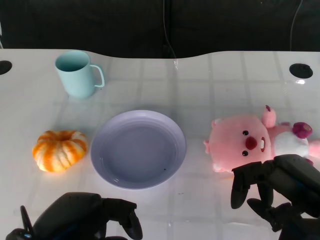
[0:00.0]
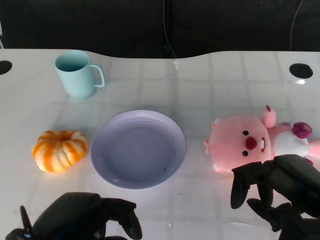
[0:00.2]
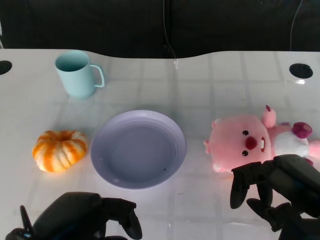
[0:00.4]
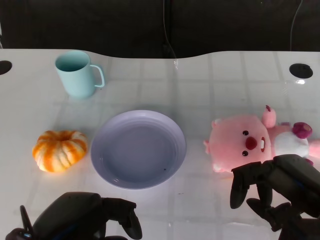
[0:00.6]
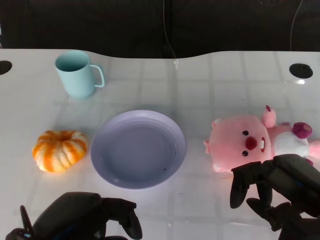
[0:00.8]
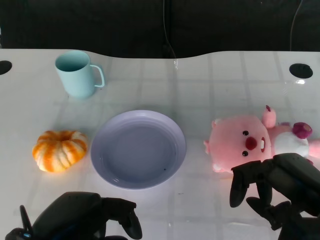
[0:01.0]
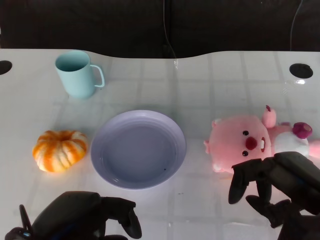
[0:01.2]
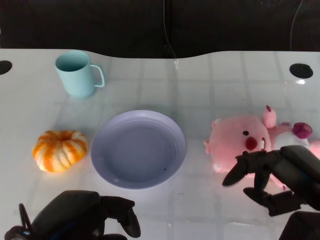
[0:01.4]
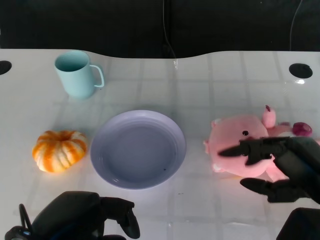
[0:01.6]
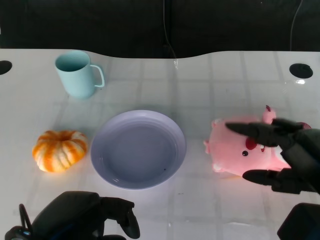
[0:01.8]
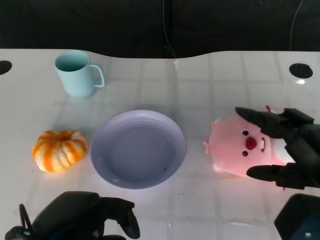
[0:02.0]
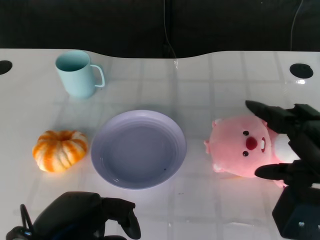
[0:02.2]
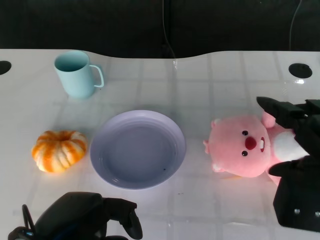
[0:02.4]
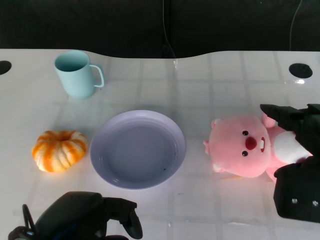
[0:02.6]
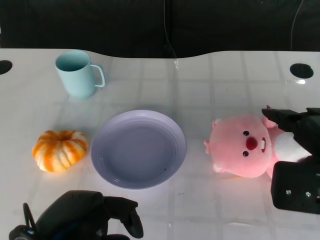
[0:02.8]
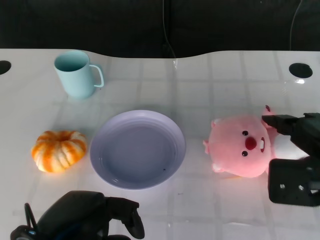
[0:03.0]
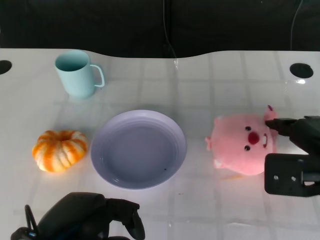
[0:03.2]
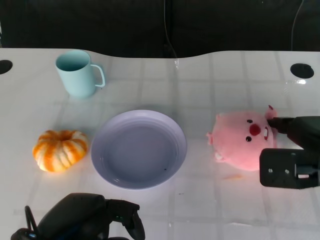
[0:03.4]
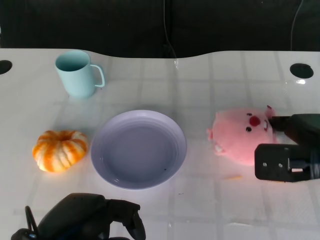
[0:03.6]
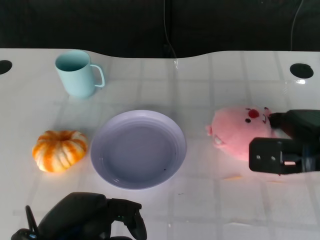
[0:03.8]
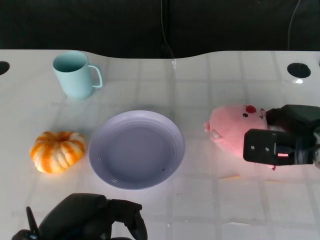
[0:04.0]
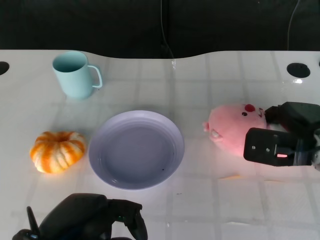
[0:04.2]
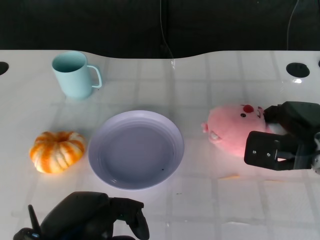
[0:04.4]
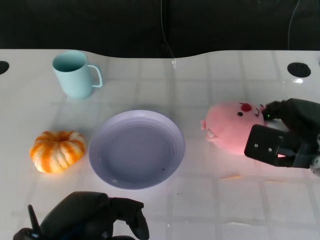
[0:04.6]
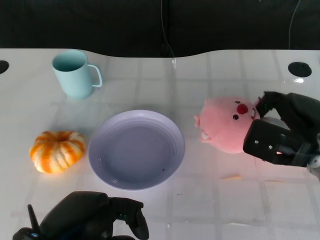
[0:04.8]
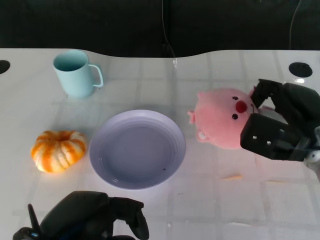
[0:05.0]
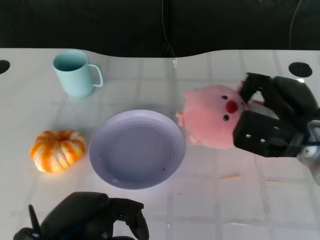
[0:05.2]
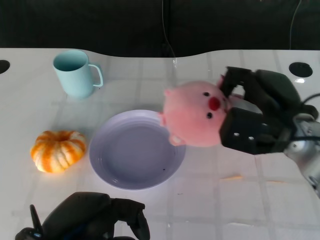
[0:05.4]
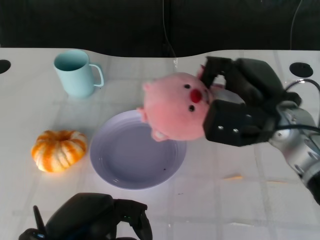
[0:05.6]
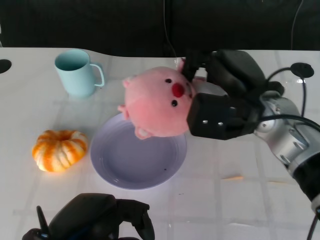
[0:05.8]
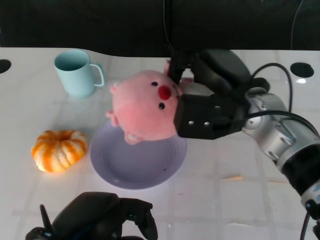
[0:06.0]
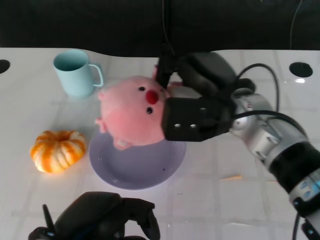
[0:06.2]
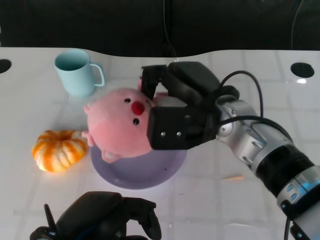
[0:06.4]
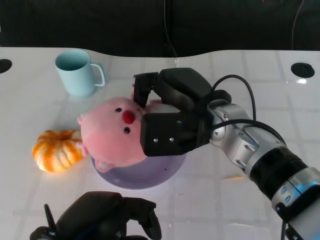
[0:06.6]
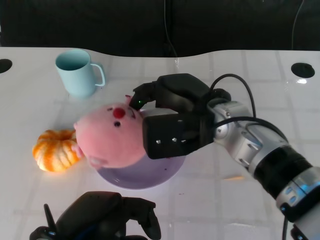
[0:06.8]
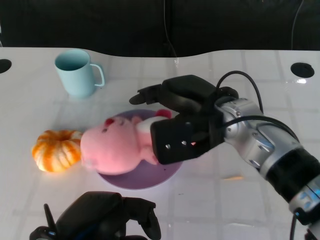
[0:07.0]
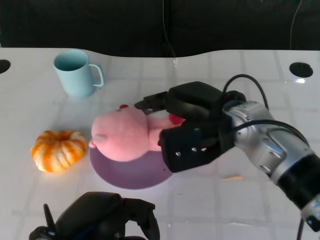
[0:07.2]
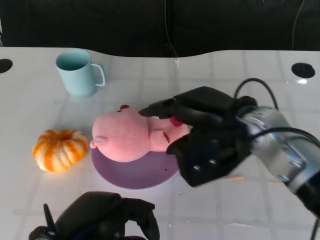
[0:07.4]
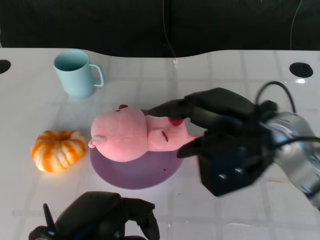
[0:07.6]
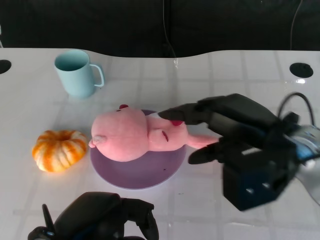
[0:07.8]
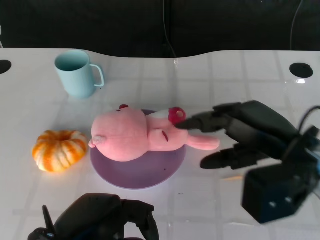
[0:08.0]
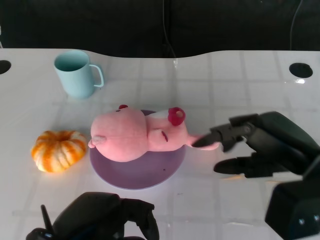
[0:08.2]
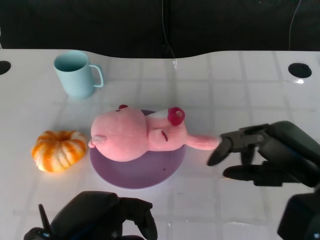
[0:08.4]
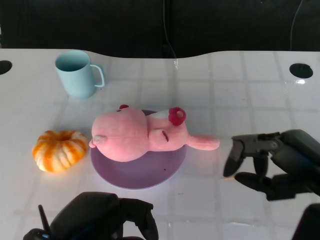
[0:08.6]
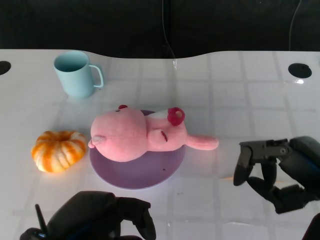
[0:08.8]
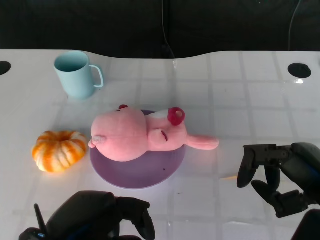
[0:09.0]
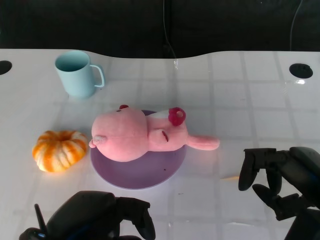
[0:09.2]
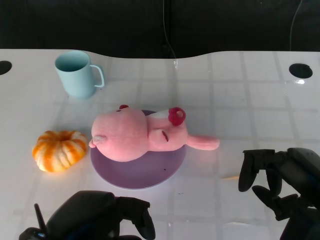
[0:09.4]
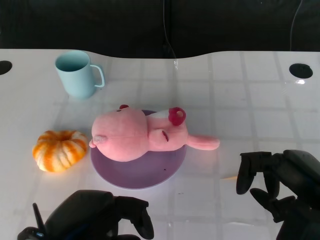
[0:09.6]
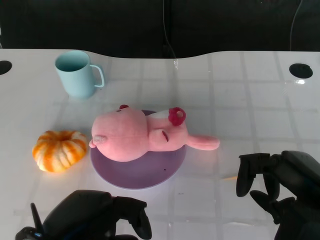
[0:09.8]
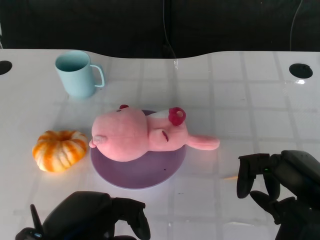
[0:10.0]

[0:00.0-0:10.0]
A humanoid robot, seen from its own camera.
Task of the whole recording: Pick up the doll on the other side of the plate and place it into the plate.
Step, 0:01.2 to 0:05.4: Grasp the pink doll with the right gripper.
Step, 0:05.6 to 0:07.8: Place the pink doll into the plate with the right gripper.
0:01.4 to 0:02.8: The right hand moves roughly 5 cm.
0:02.8 to 0:04.2: The right hand heads forward and downward, covering about 10 cm.
0:04.2 to 0:05.8: The right hand heads to the left and upward, covering about 10 cm.
0:07.2 to 0:08.6: The right hand heads to the right and backward, covering about 15 cm.
0:08.6 to 0:10.0: There are only small adjustments of the hands.

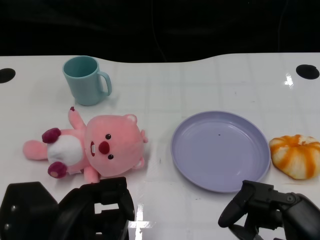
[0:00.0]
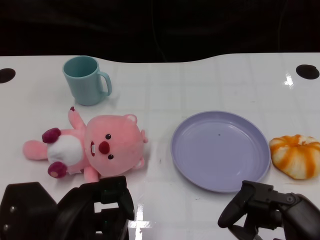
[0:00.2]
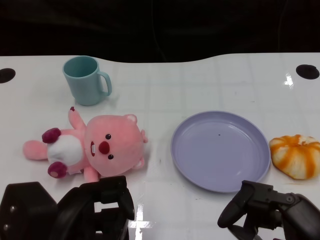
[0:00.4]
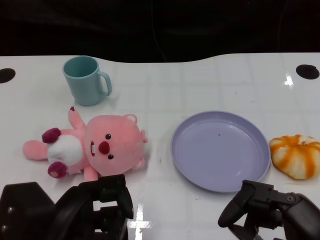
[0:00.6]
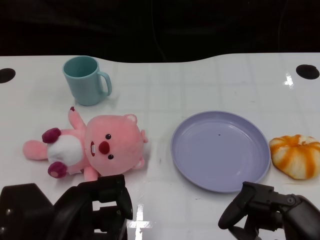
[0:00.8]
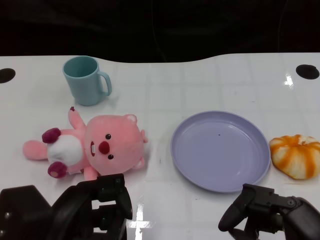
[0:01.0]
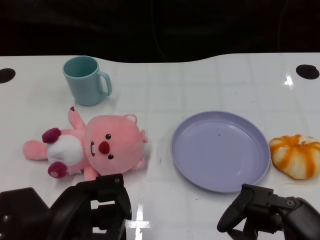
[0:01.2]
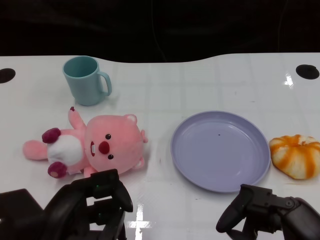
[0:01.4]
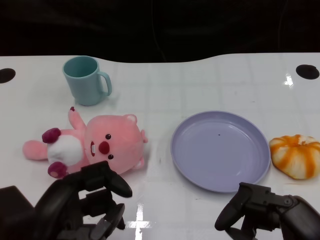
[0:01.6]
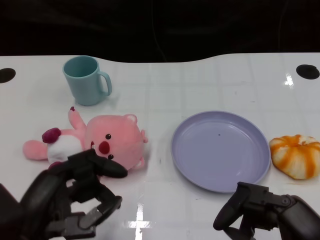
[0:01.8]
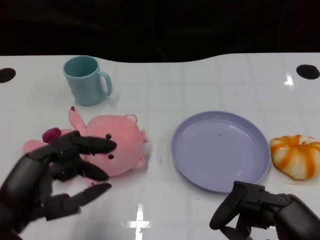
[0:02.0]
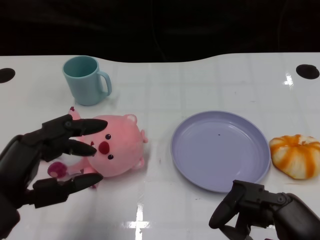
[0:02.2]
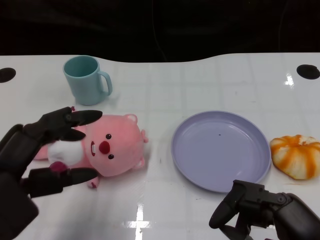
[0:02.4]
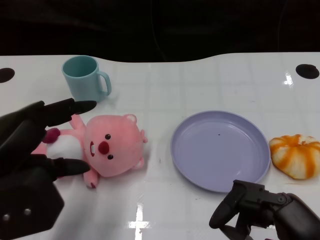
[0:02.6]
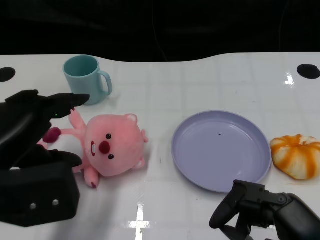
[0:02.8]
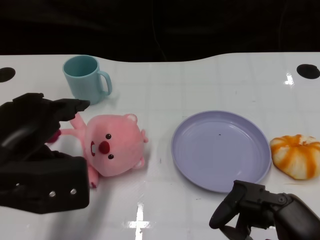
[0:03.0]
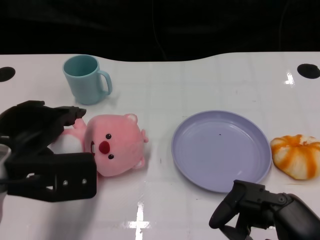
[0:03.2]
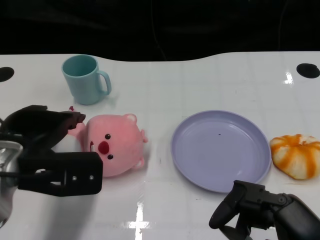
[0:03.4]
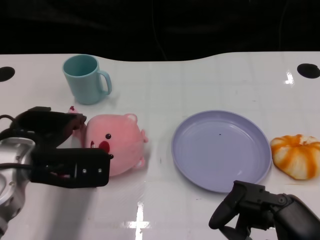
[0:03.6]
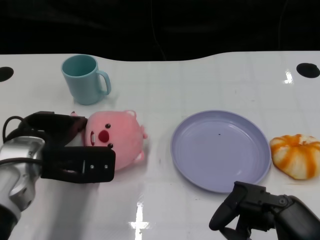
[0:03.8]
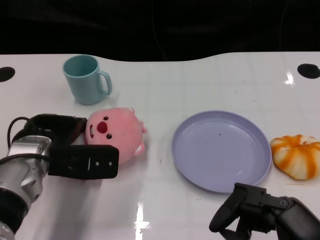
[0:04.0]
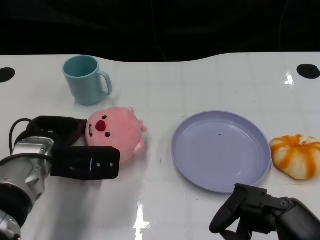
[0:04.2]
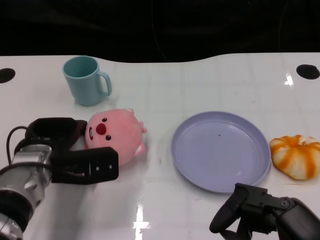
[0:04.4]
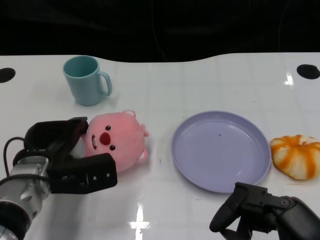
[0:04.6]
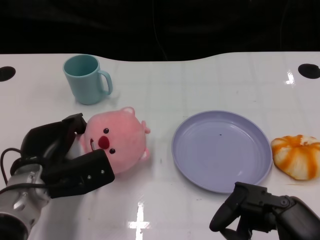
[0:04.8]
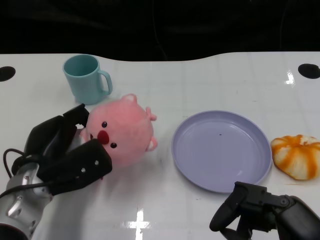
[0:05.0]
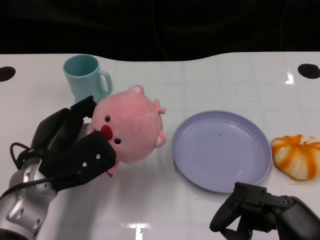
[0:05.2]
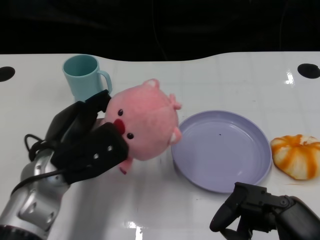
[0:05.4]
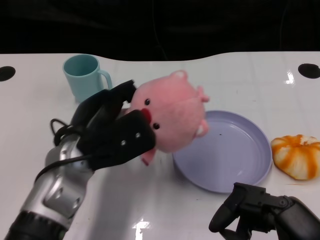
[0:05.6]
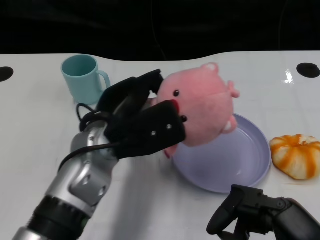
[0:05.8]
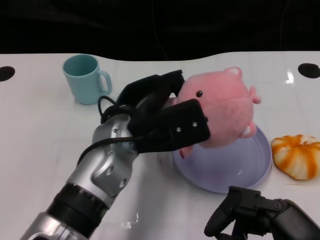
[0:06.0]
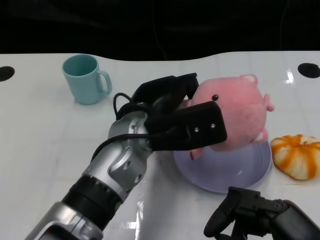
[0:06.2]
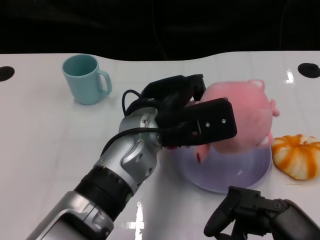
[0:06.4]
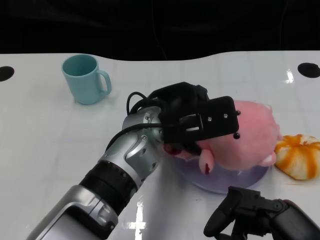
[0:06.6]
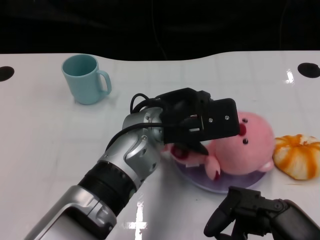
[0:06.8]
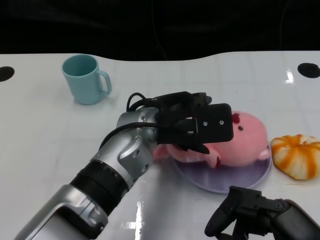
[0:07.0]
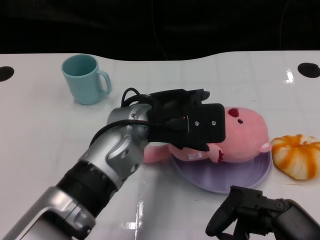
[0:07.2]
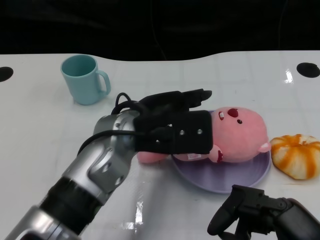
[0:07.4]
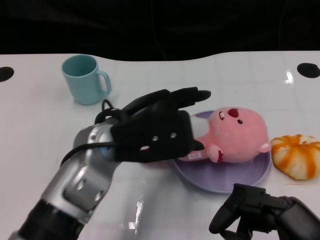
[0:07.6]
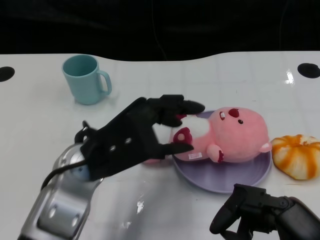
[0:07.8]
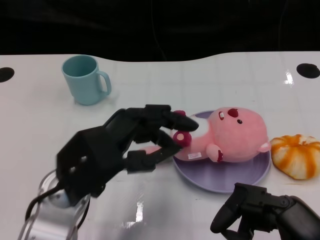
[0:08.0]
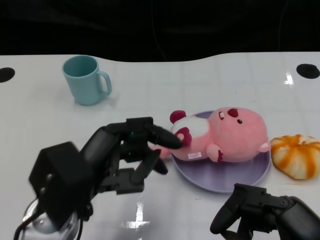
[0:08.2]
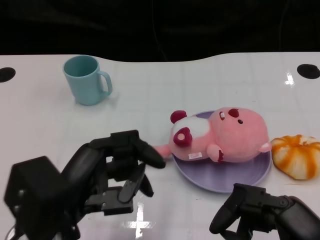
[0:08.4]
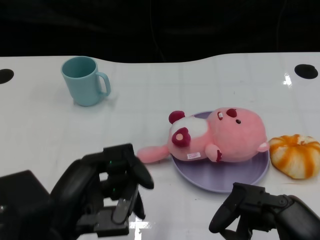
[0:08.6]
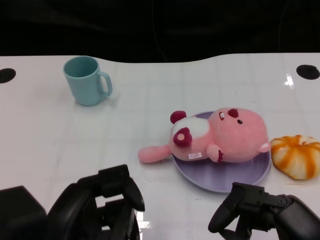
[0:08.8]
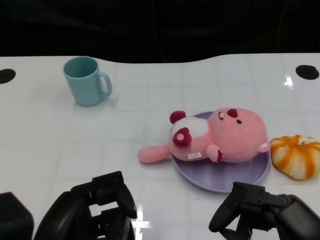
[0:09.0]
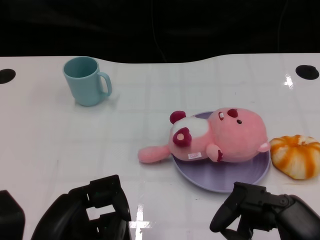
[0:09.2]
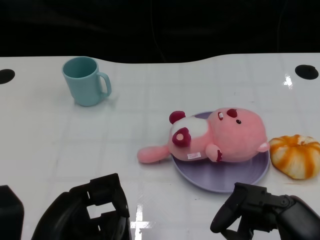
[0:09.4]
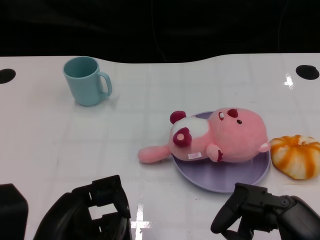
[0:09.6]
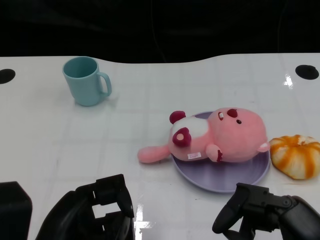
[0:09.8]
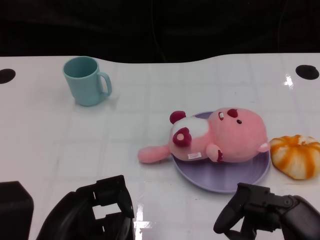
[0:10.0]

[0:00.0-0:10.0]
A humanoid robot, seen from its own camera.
Task of the whole recording: Pick up the doll on one side of the plate and place it into the plate.
Step, 0:01.4 to 0:04.8: Grasp the pink doll with the left gripper.
Step, 0:05.0 to 0:07.0: Place the pink doll into the plate with the left gripper.
0:01.4 to 0:02.8: The left hand is displaced upward and forward by about 10 cm.
0:02.8 to 0:04.2: The left hand heads forward and downward, covering approximately 15 cm.
0:04.2 to 0:05.8: The left hand heads to the right and upward, covering about 10 cm.
0:05.8 to 0:07.2: The left hand shifts about 5 cm to the right.
0:07.2 to 0:08.6: The left hand shifts roughly 20 cm backward and to the left.

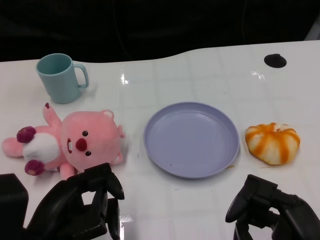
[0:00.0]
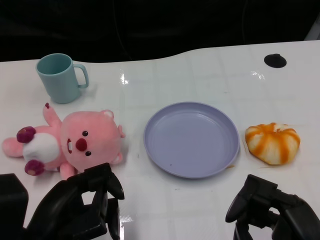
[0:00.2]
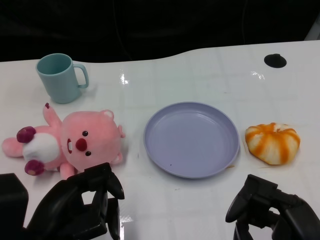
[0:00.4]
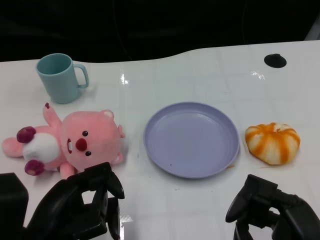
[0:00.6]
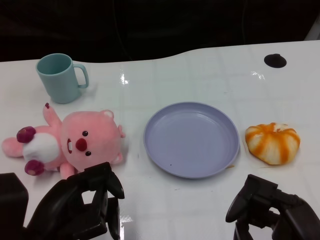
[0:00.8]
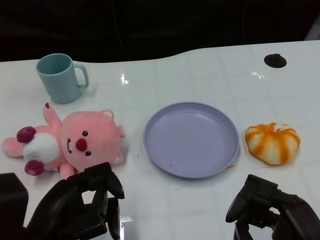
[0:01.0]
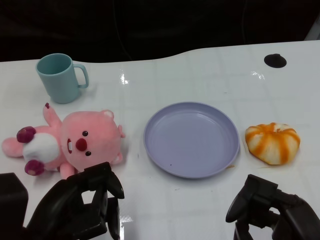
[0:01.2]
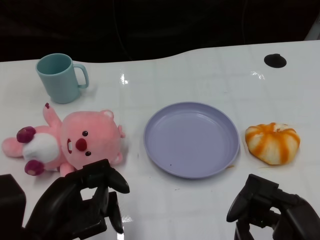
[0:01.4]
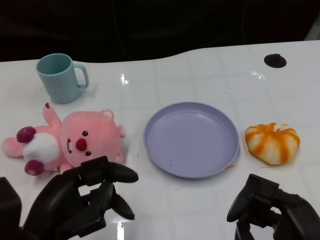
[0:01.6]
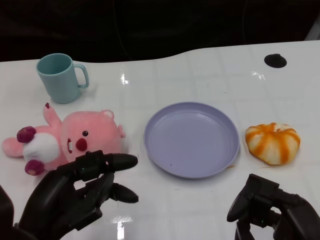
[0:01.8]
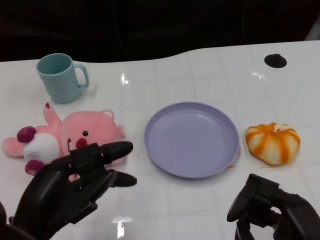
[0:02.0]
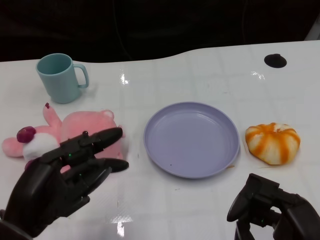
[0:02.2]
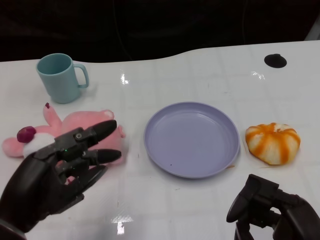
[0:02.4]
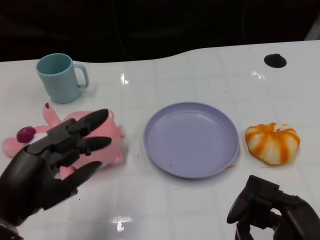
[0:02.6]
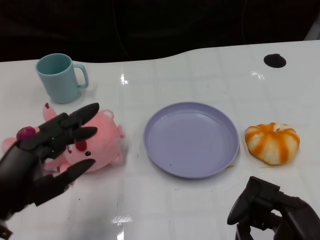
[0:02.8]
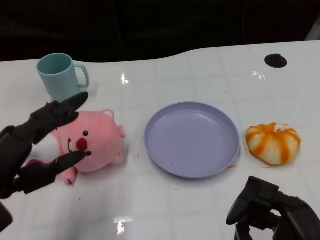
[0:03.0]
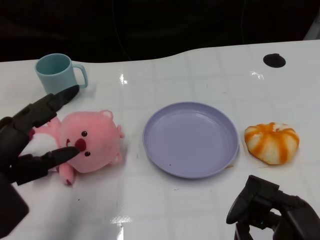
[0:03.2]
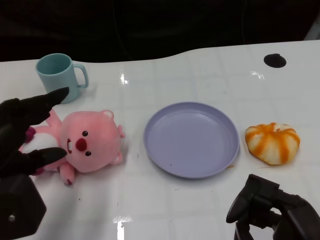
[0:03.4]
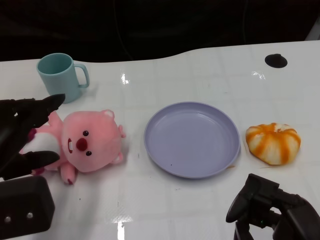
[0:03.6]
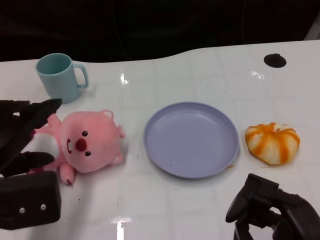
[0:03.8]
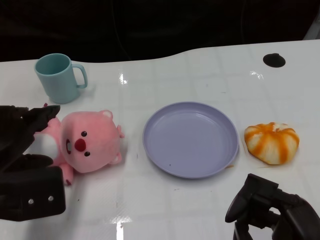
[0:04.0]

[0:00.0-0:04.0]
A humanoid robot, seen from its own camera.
Task of the whole recording: Pick up the doll on one side of the plate and place it into the plate.
0:02.6 to 0:04.0: The left hand is displaced forward by about 5 cm.
